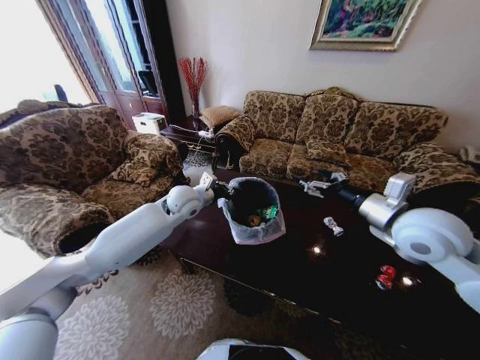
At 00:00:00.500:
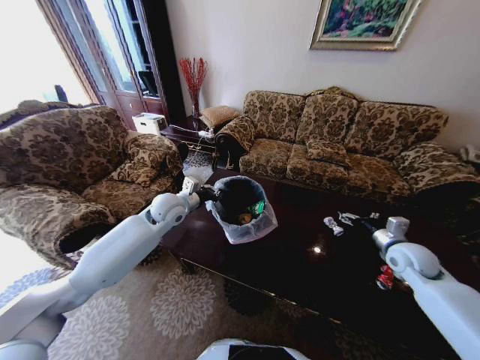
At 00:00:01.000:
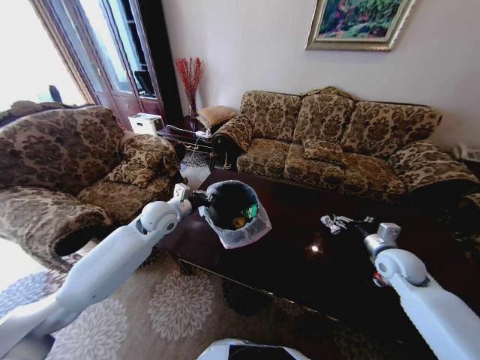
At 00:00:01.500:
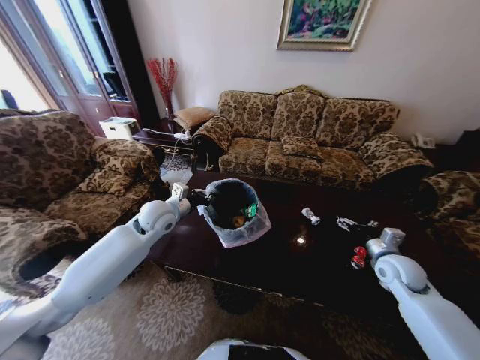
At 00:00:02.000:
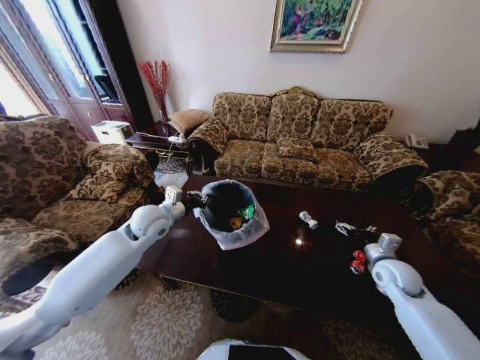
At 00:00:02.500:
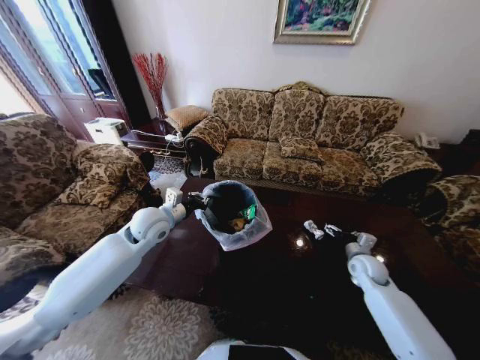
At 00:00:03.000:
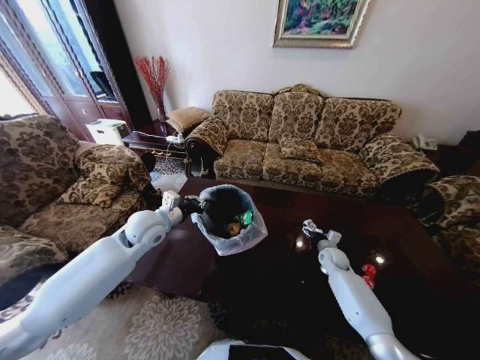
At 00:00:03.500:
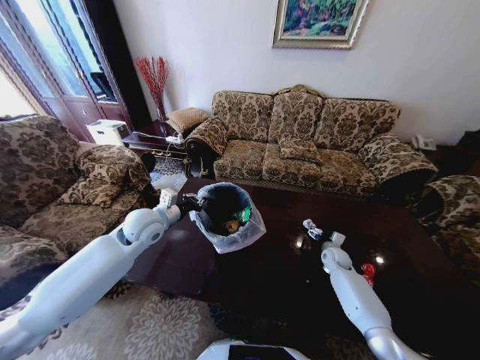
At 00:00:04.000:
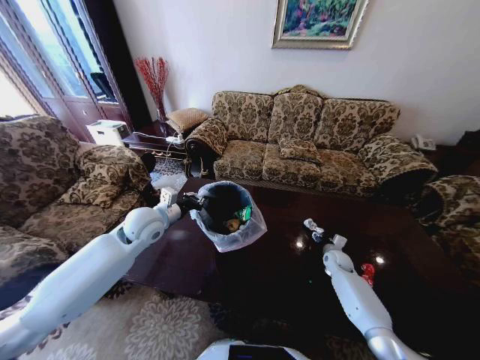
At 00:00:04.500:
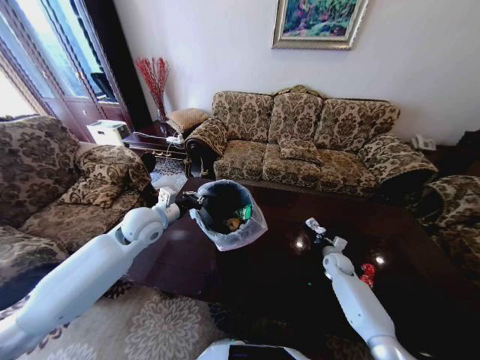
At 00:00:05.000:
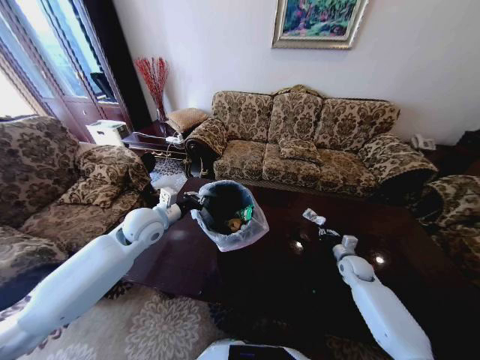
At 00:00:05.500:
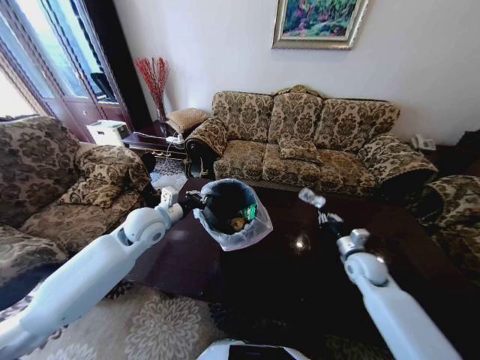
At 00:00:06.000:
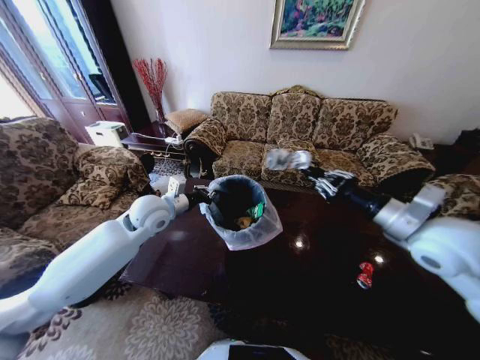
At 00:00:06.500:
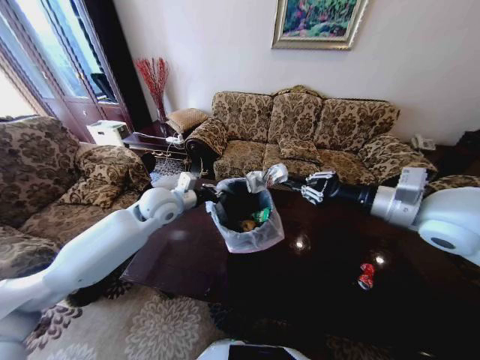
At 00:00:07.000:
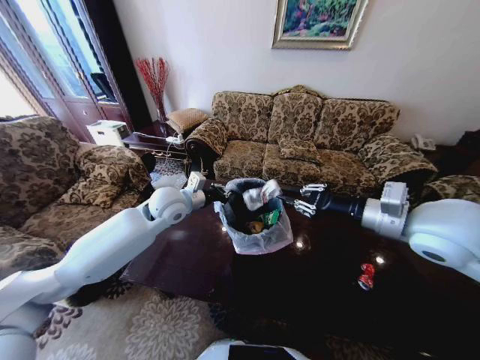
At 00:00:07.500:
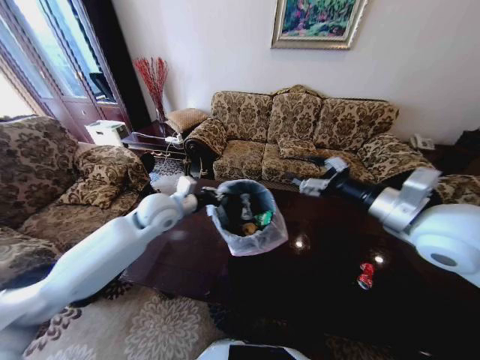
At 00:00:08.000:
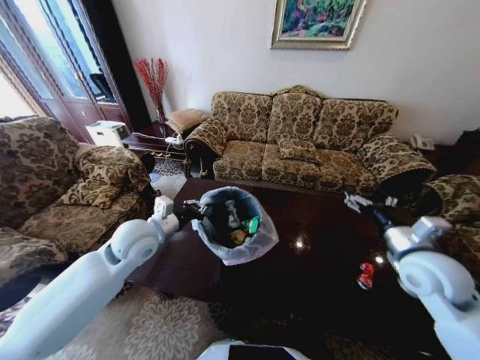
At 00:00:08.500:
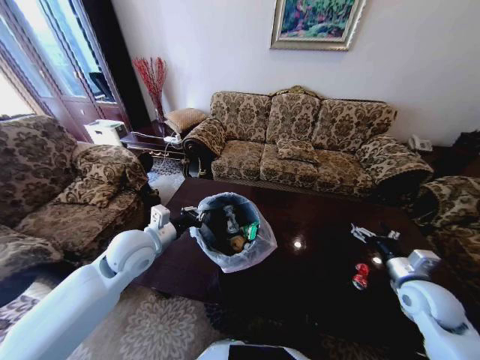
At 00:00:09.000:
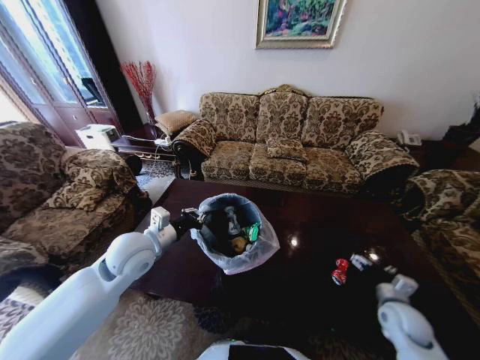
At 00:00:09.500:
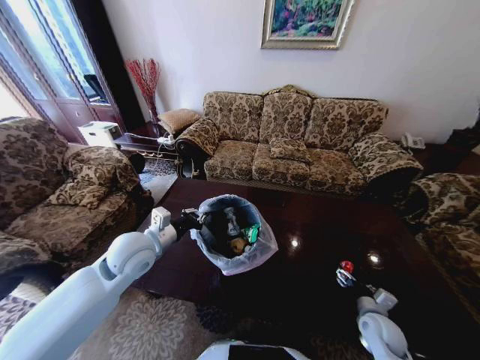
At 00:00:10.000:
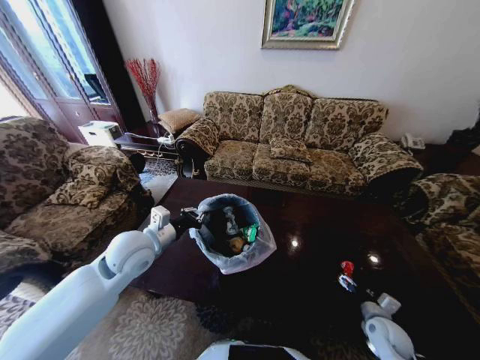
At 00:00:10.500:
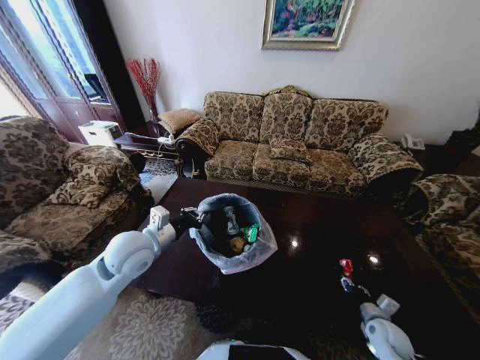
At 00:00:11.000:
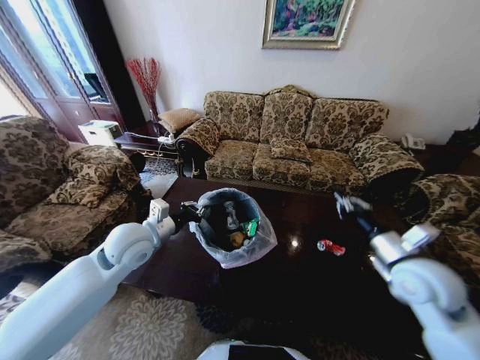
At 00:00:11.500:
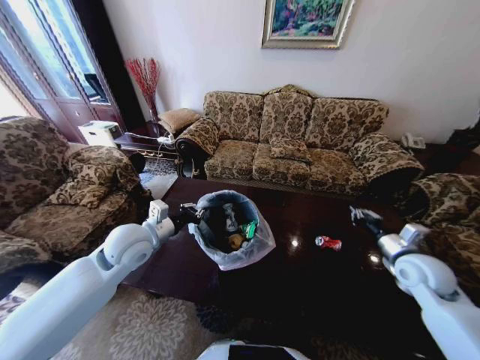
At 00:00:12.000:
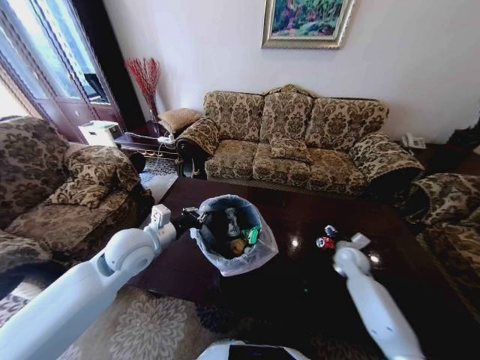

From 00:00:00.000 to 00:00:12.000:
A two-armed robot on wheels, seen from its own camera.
Task of the whole recording: Move to the front of the table and place the trash on the table into the trash bin.
From 00:00:00.000 to 00:00:02.000: The left gripper heads to the left and backward, covering approximately 10 cm; the right gripper moves downward and to the right, some 25 cm.
From 00:00:02.000 to 00:00:04.000: The right gripper goes some 20 cm downward and forward, and closes its fingers.
From 00:00:04.000 to 00:00:06.000: The right gripper moves upward, about 40 cm, and closes up.
From 00:00:06.000 to 00:00:08.000: The left gripper is displaced backward by some 5 cm; the right gripper goes roughly 10 cm downward, and opens its fingers.
From 00:00:08.000 to 00:00:10.000: The right gripper heads downward, covering some 30 cm.
From 00:00:10.000 to 00:00:12.000: The right gripper goes some 20 cm forward, travels upward and back again, about 30 cm each way, and closes, then opens again.

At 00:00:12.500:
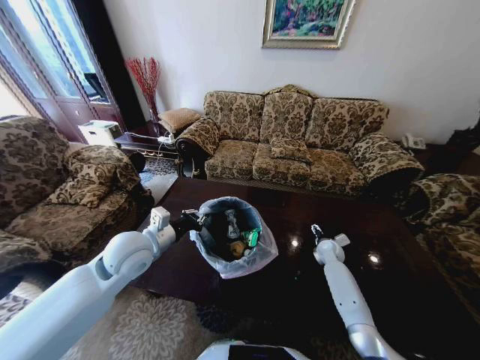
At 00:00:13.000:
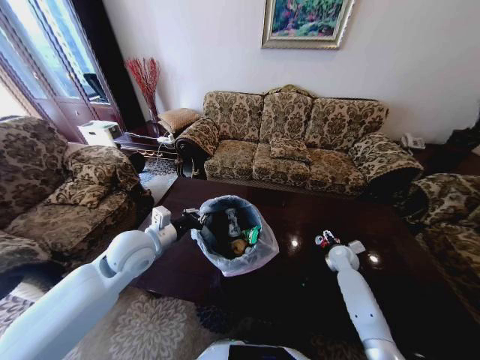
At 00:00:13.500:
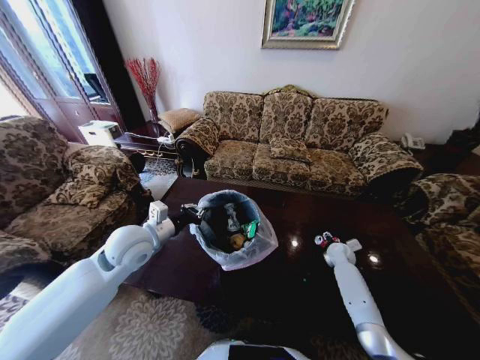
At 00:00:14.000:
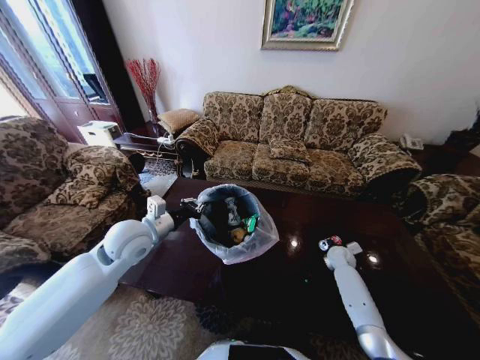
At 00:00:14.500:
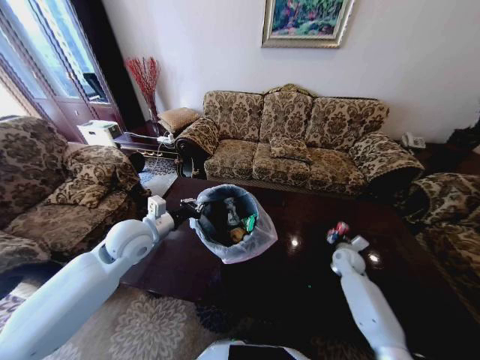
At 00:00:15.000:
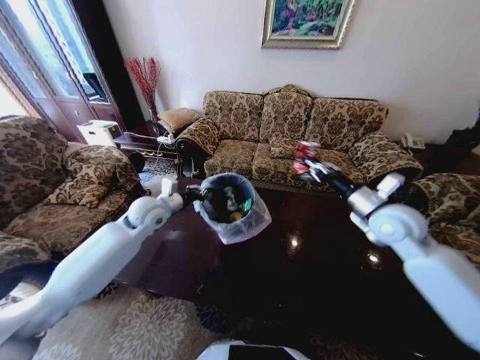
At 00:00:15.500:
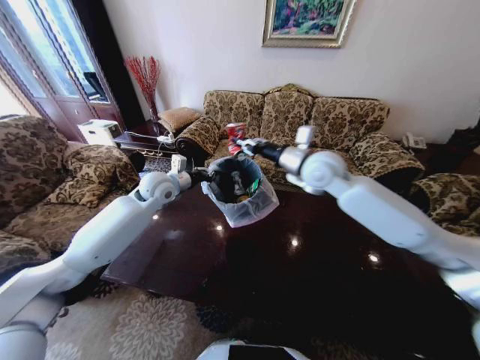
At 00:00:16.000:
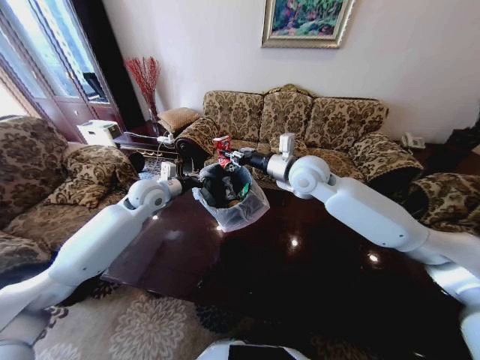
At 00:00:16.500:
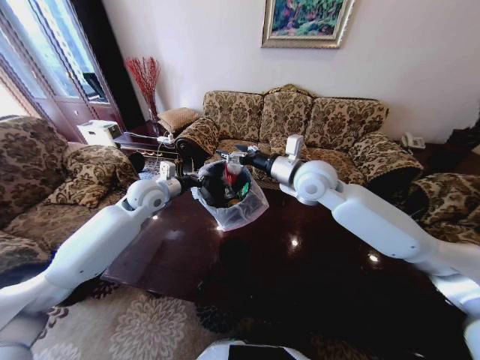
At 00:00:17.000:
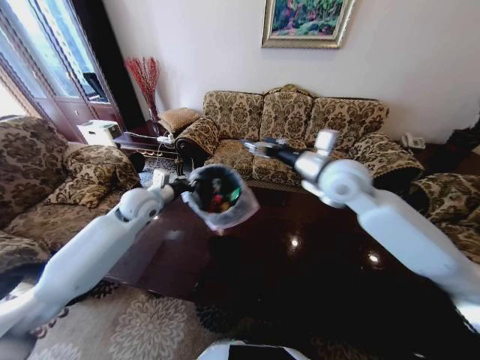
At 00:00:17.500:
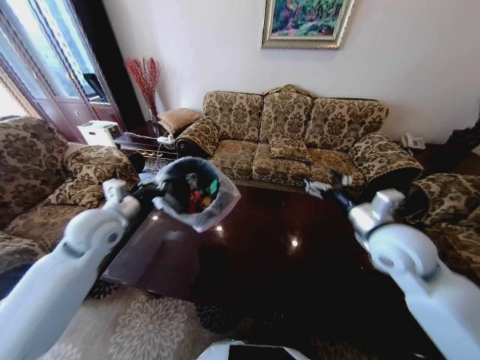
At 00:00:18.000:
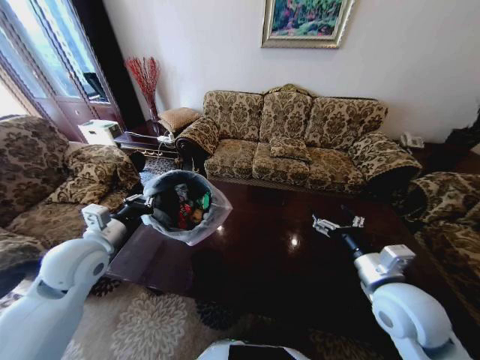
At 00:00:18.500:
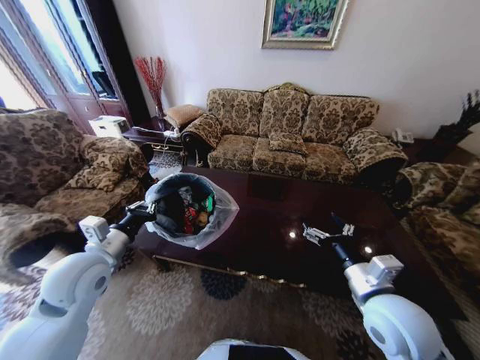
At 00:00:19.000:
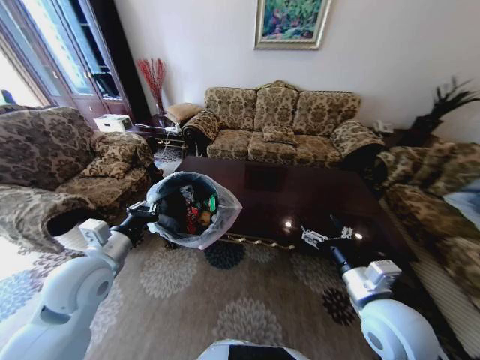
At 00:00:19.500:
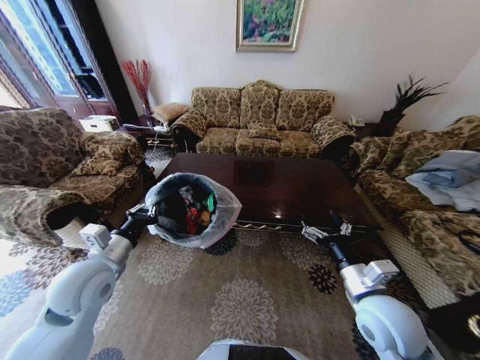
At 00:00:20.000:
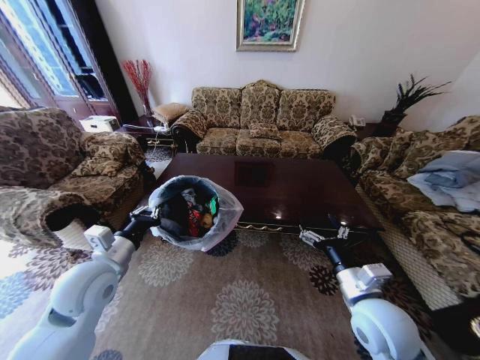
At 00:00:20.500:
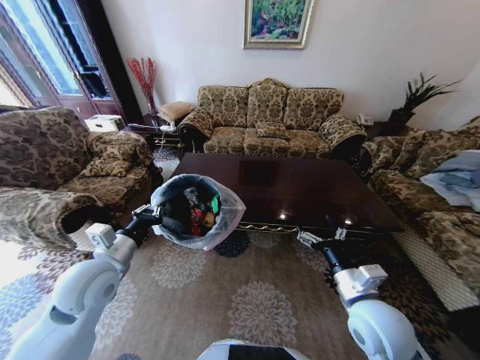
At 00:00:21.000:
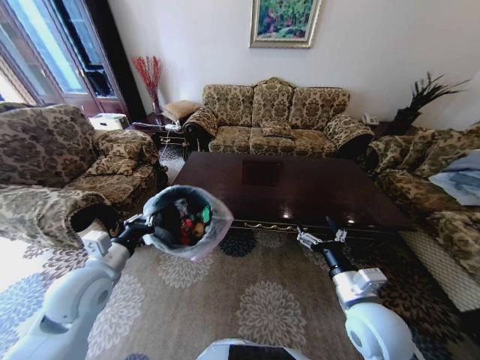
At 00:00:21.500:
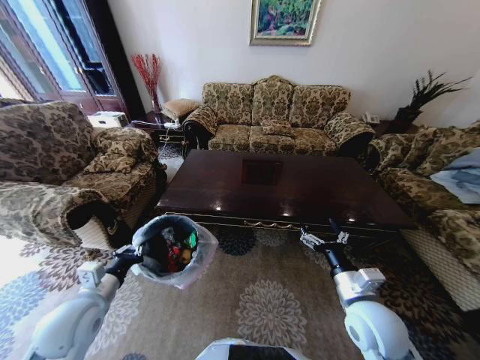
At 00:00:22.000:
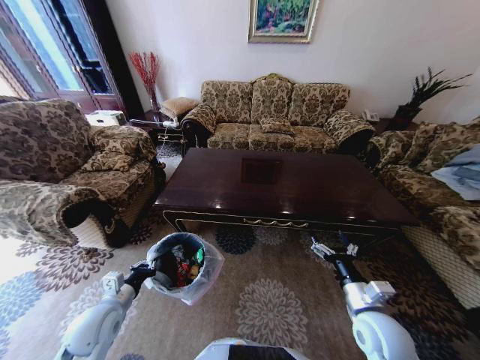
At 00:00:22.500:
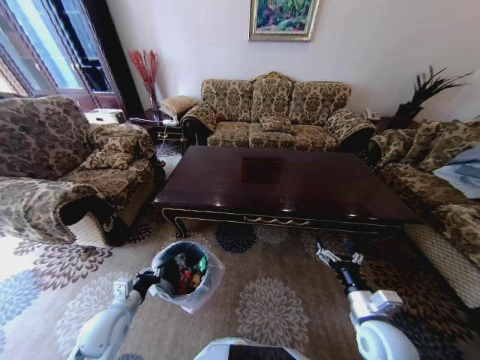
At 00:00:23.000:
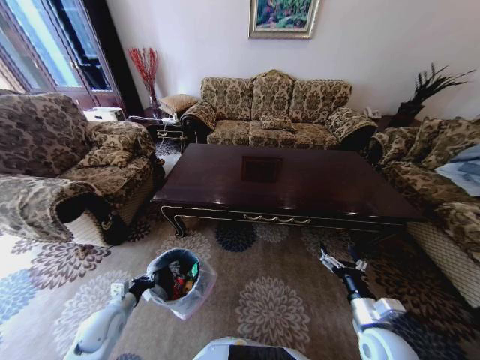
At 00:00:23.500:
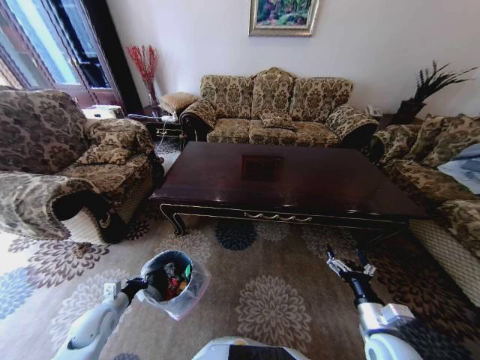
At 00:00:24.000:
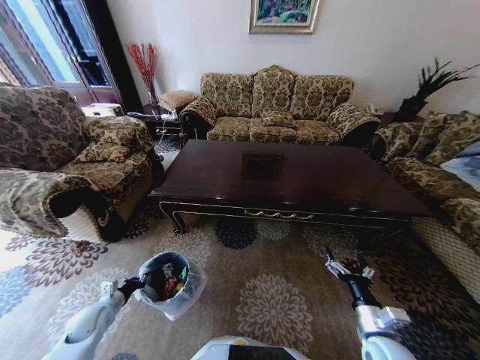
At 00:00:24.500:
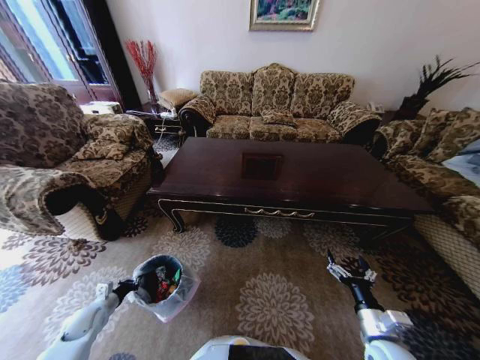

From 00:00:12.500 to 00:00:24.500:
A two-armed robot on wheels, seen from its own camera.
Task of the whole recording: Move to the front of the table and place the trash on the table into the trash bin.
From 00:00:12.500 to 00:00:14.500: The right gripper changes place by about 5 cm, and closes.
From 00:00:14.500 to 00:00:16.500: The right gripper travels upward and to the left by some 40 cm, and opens its fingers, while the left gripper is displaced forward by roughly 10 cm.
From 00:00:16.500 to 00:00:18.500: The right gripper goes about 30 cm backward, downward and to the right. Meanwhile the left gripper heads backward, covering roughly 20 cm.
From 00:00:20.500 to 00:00:22.500: The right gripper is displaced downward and to the right by roughly 10 cm. Meanwhile the left gripper shifts some 20 cm downward.
From 00:00:22.500 to 00:00:24.500: The right gripper ends up about 5 cm from where it was, while the left gripper moves to the left and downward, about 20 cm.

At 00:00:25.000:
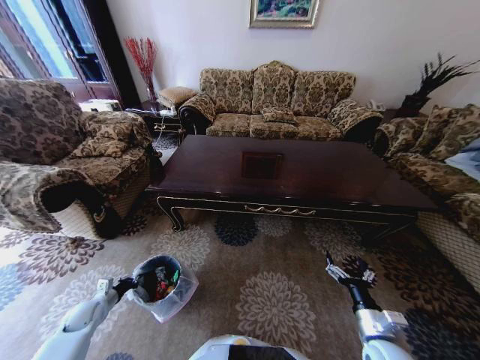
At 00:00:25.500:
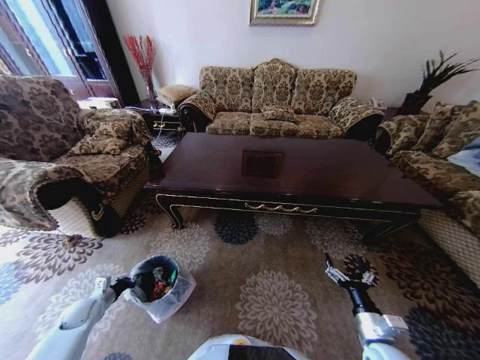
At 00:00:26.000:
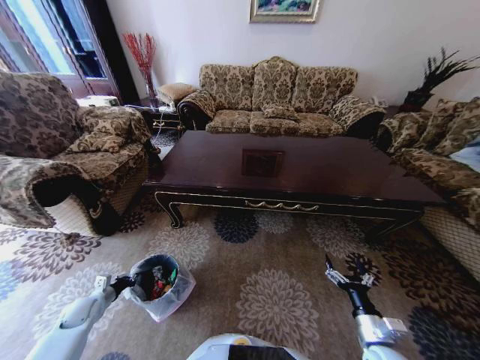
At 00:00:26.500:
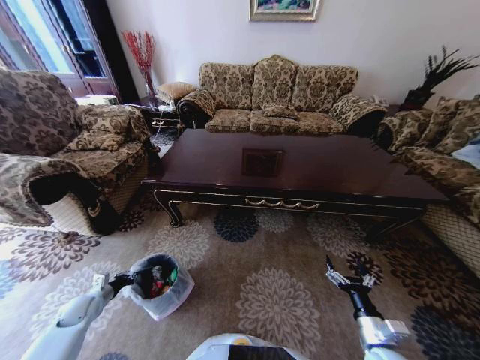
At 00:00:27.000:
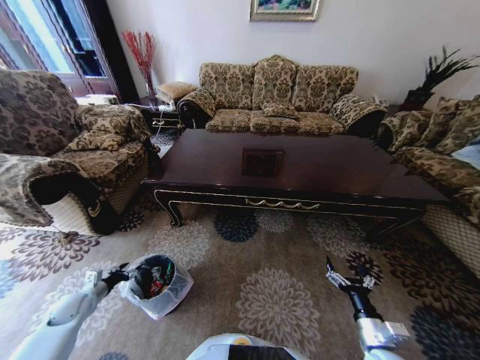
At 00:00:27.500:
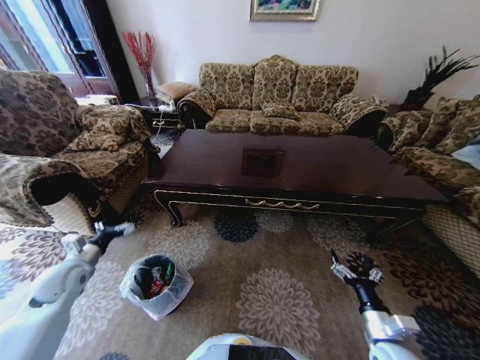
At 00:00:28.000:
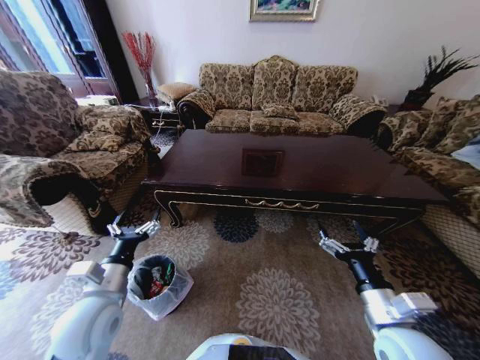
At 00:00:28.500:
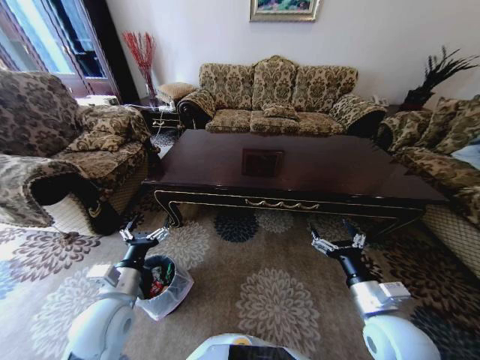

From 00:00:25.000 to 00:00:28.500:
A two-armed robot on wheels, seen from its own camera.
Task of the whole recording: Move to the front of the table and place the trash on the table into the trash bin.
From 00:00:25.000 to 00:00:27.000: The left gripper opens its fingers.
From 00:00:27.000 to 00:00:28.500: The left gripper shifts about 30 cm to the right and upward. Meanwhile the right gripper is displaced upward by some 15 cm.
